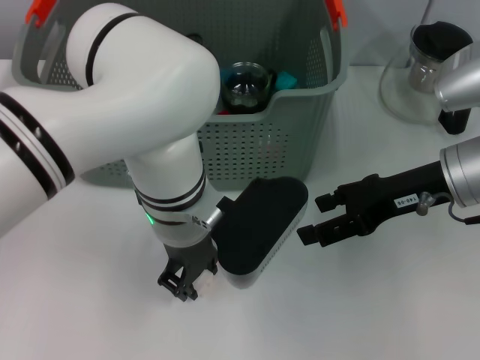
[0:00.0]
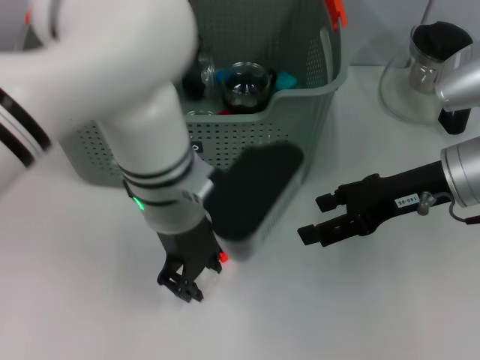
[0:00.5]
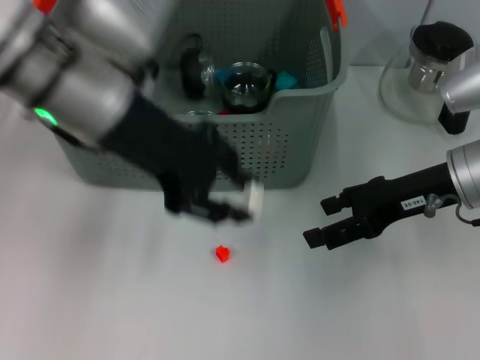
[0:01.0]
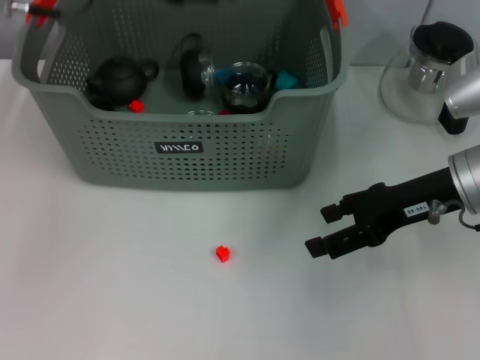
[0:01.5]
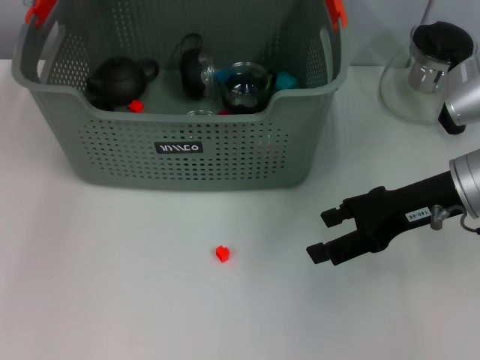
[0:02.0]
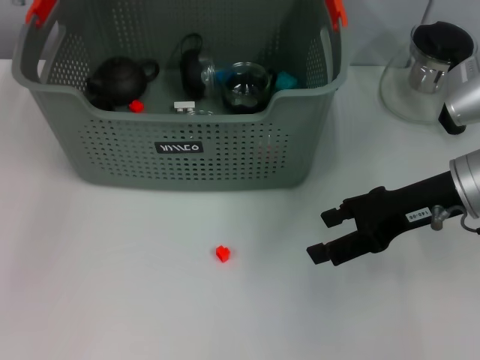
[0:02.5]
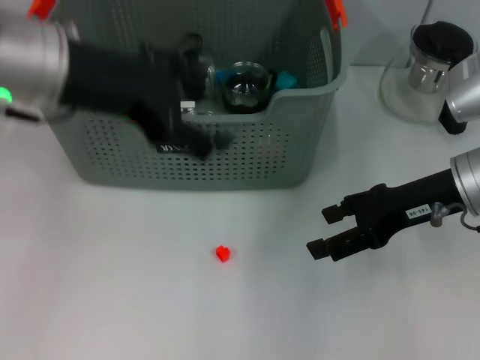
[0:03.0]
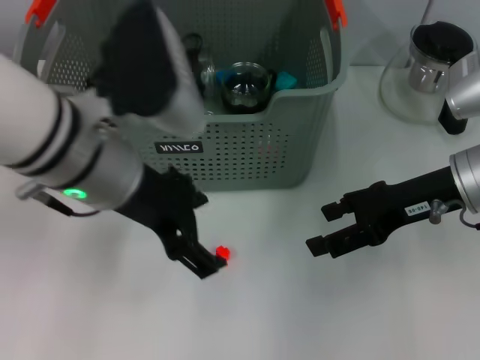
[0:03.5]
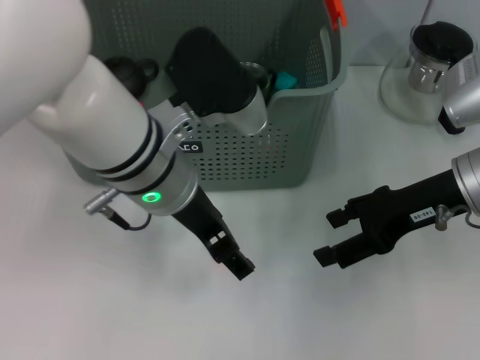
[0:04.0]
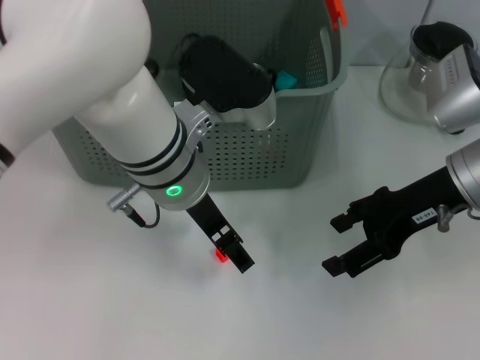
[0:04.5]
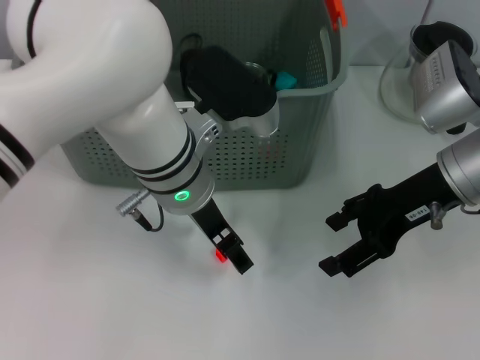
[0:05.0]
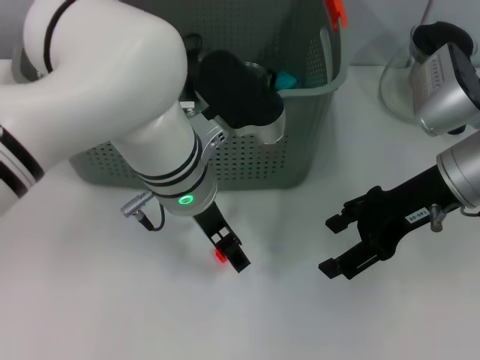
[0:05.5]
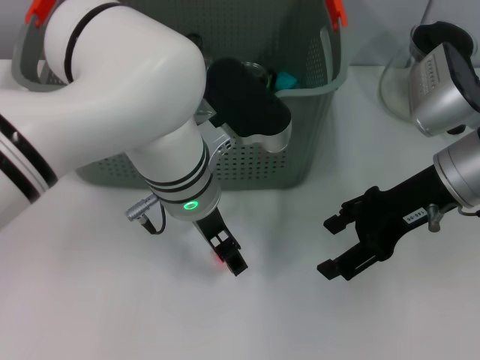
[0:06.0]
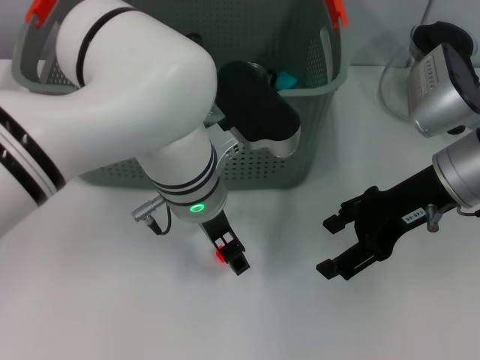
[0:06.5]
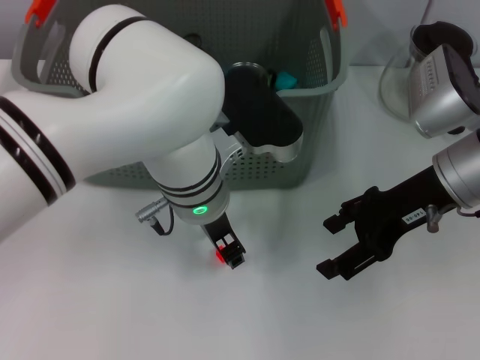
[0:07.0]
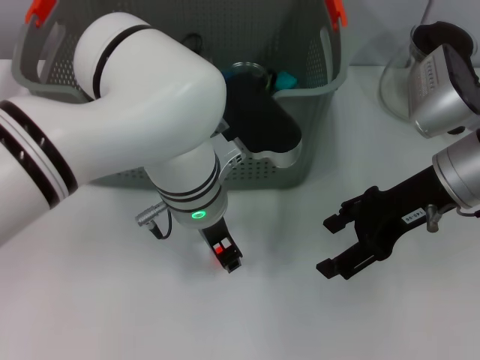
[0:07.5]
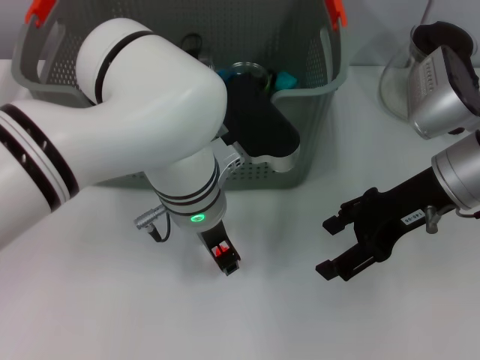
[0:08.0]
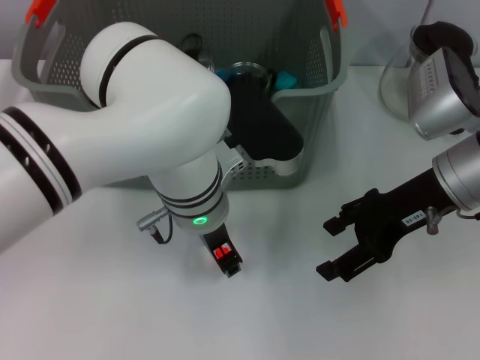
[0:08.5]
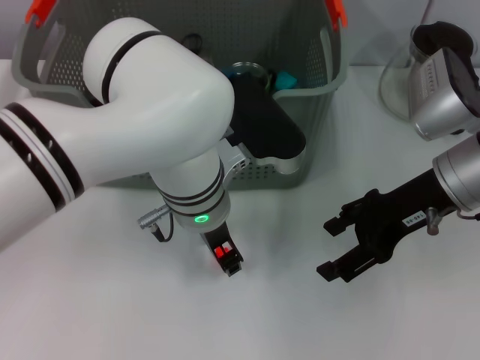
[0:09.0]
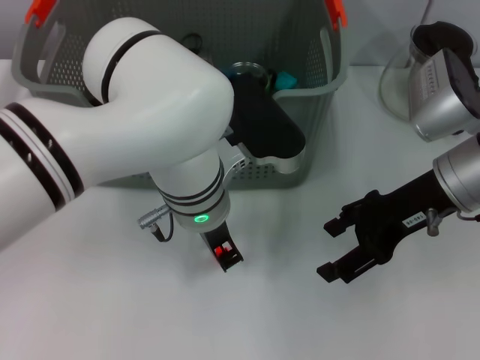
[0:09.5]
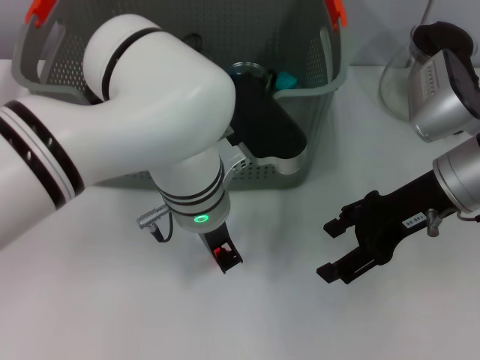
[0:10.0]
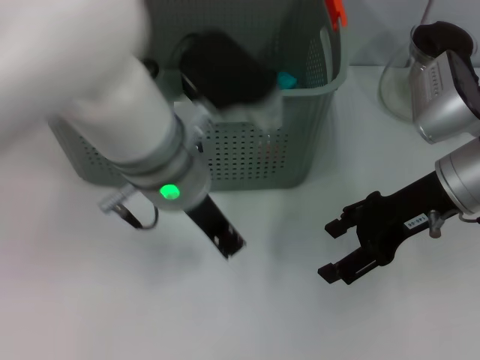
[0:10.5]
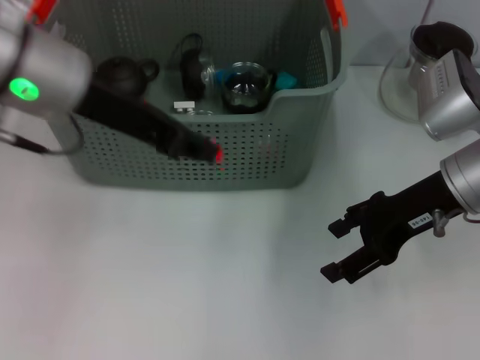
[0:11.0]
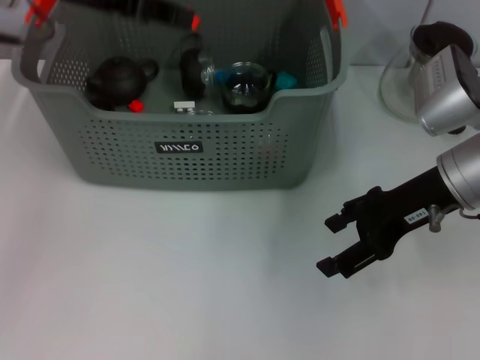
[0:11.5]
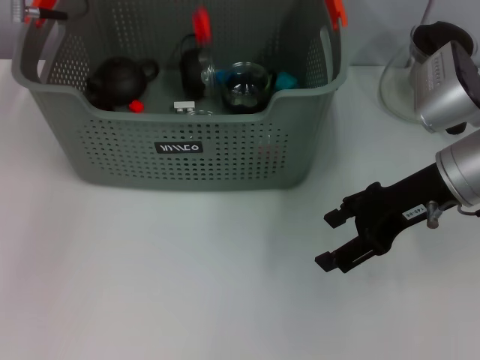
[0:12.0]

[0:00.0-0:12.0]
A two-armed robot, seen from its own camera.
Task of the whole recording: pick up the teacup on the table and place it into the storage bin, pick up the block on the table and place it into the storage bin.
Step, 0:00.5 to 0:02.0: Place the white block in the storage box with left gripper.
Step, 0:02.5 to 0:09.5: Grasp the orange block with left gripper.
0:00.0 to 0:02.0: The left gripper heads to the left, upward and forward, covering some 25 cm.
0:02.0 to 0:04.0: The left gripper moves backward, to the right and downward, approximately 20 cm, and opens up.
0:04.0 to 0:06.0: The left gripper moves approximately 5 cm.
0:06.0 to 0:08.0: The left gripper closes up.
0:08.0 to 0:10.0: The left gripper closes.
0:10.0 to 0:12.0: The left gripper travels to the left, upward and forward by about 25 cm.

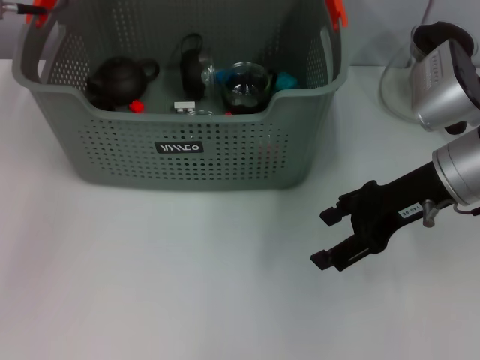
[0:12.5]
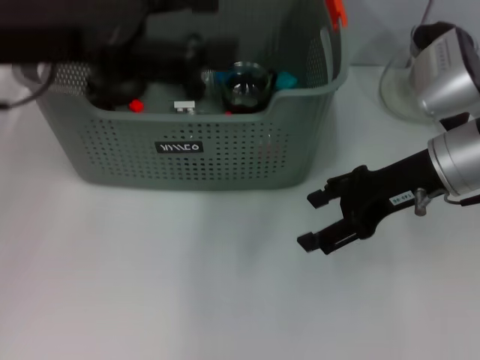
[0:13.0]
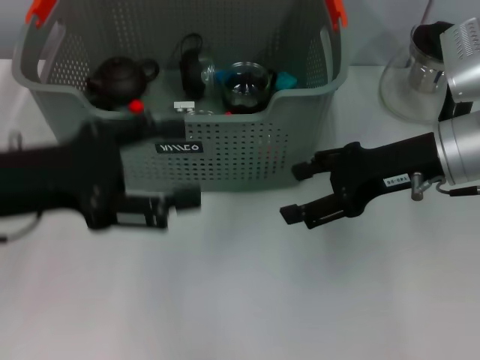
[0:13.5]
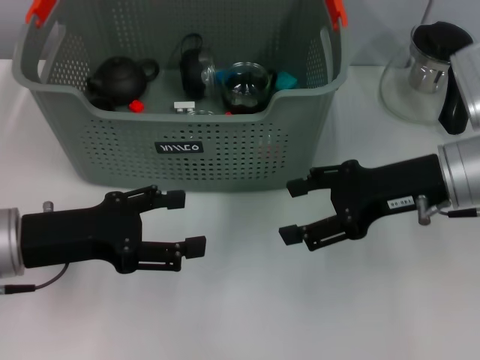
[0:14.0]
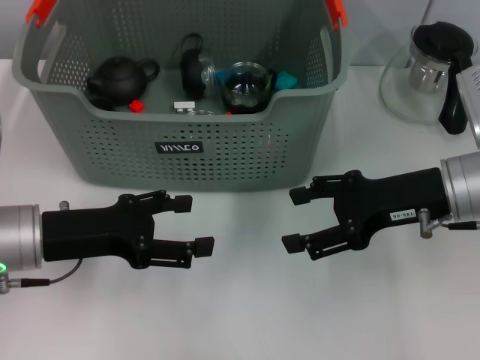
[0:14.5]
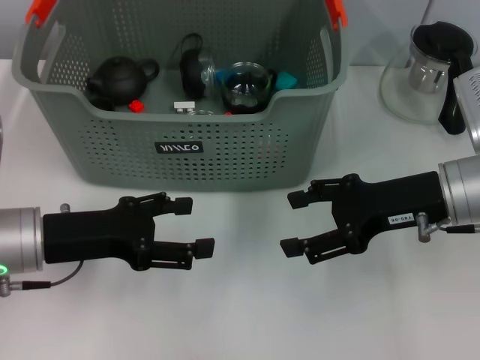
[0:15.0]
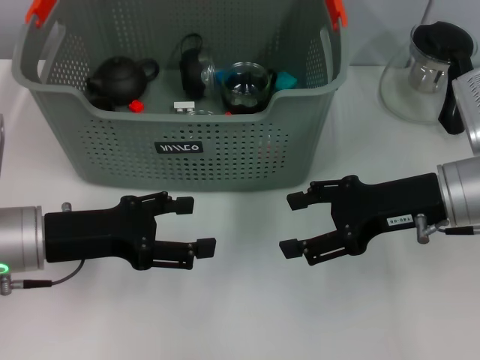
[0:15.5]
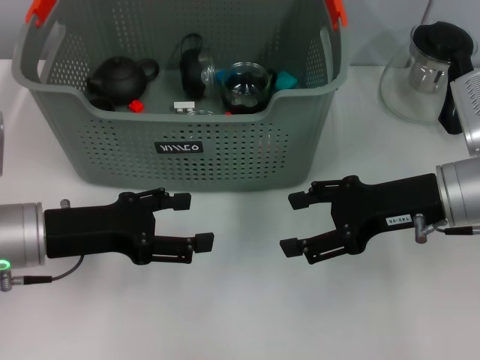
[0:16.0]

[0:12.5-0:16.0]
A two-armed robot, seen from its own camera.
Task of the whole recording: pick up the teacup on the table and place it into the storage bin, pick up the block on the table and place it into the storage bin.
0:12.5 to 0:14.5: The left gripper heads downward and backward, covering approximately 25 cm.
0:14.5 to 0:16.0: The two grippers keep their place.
